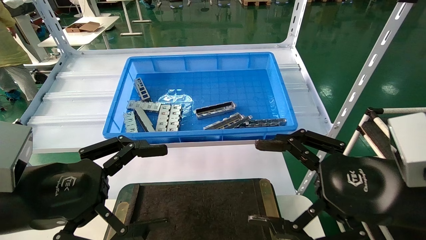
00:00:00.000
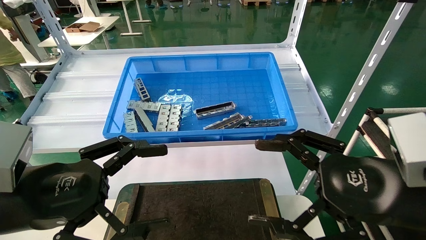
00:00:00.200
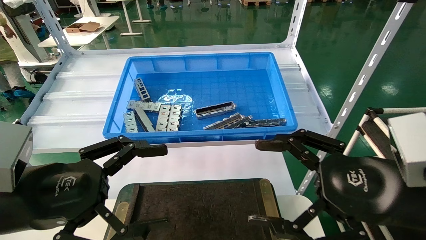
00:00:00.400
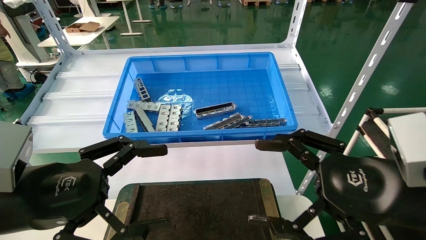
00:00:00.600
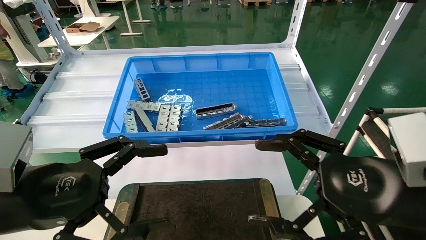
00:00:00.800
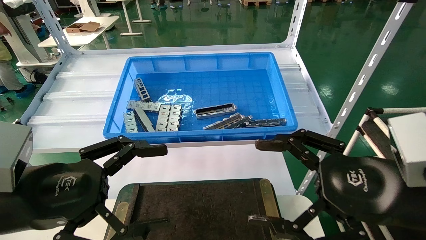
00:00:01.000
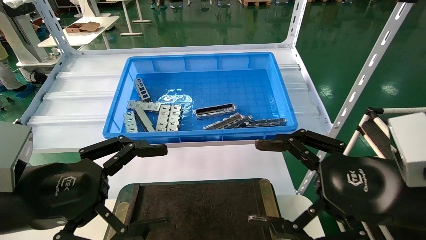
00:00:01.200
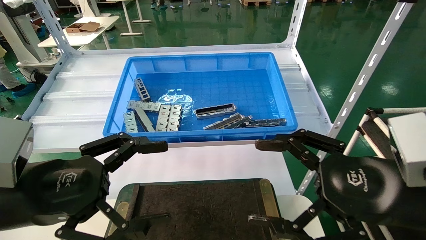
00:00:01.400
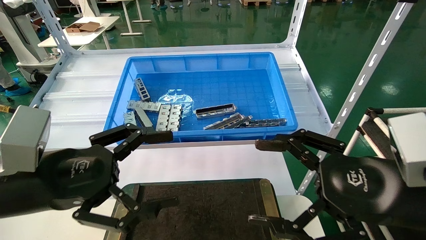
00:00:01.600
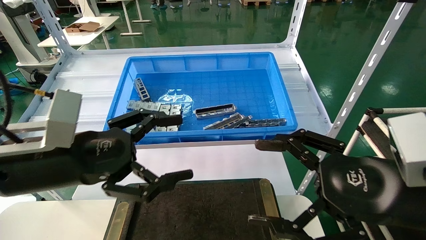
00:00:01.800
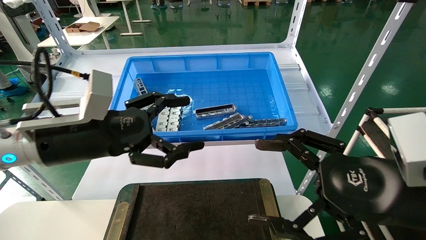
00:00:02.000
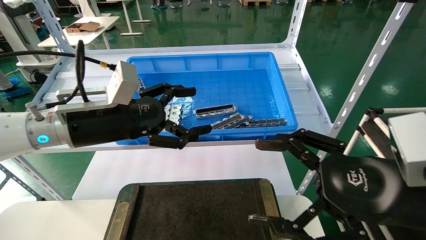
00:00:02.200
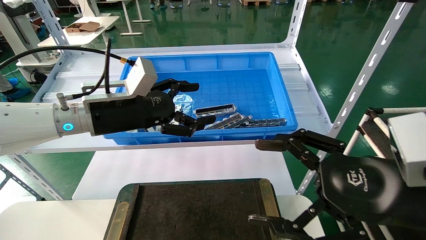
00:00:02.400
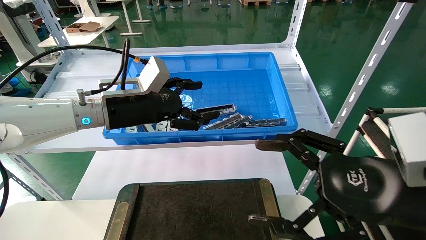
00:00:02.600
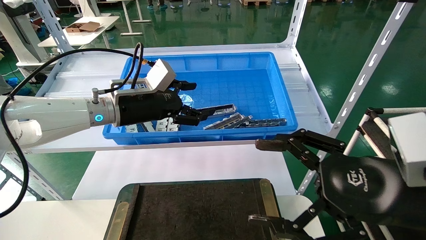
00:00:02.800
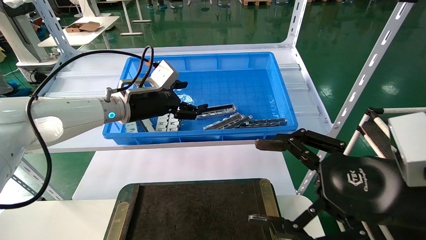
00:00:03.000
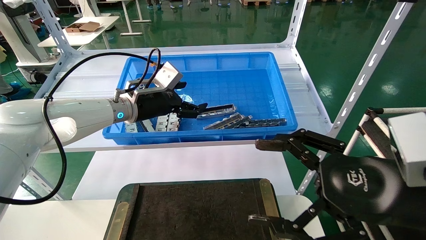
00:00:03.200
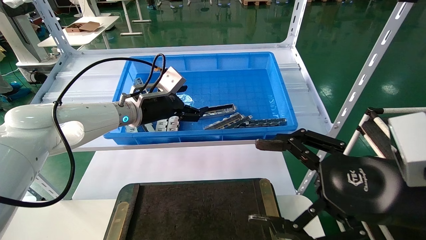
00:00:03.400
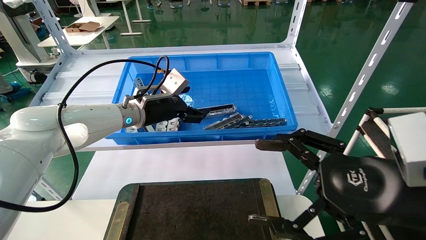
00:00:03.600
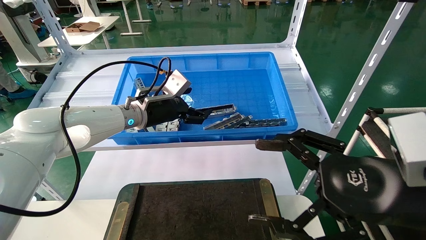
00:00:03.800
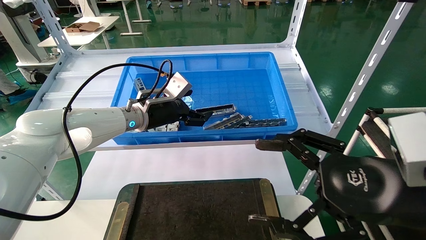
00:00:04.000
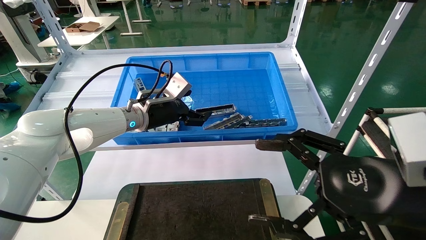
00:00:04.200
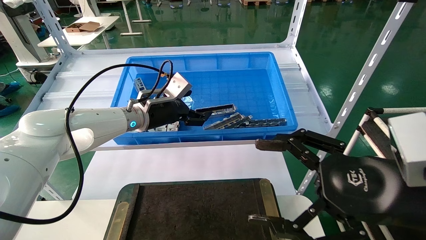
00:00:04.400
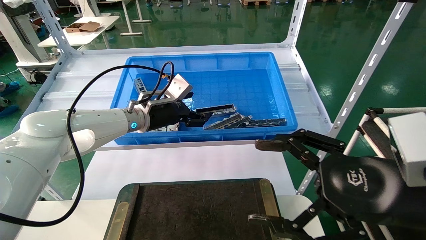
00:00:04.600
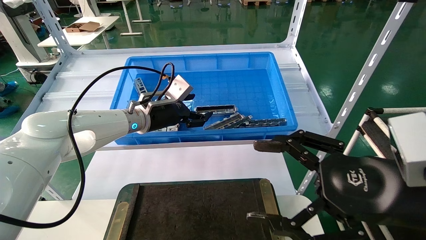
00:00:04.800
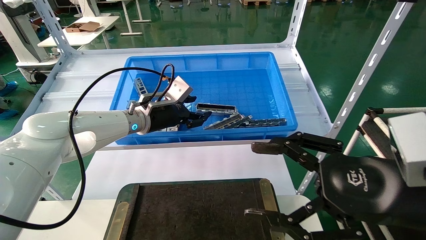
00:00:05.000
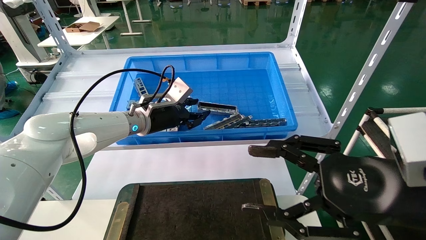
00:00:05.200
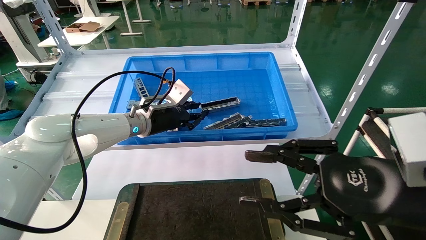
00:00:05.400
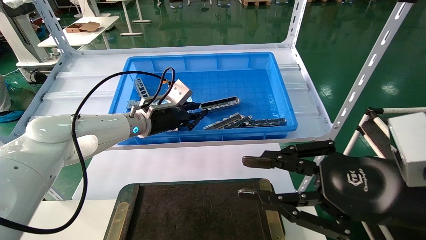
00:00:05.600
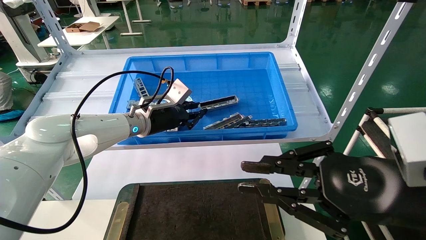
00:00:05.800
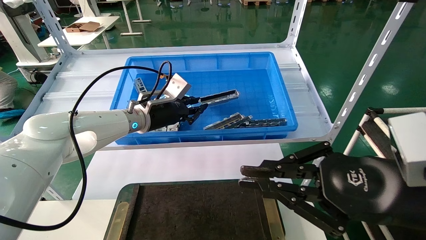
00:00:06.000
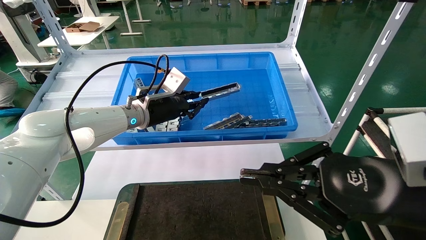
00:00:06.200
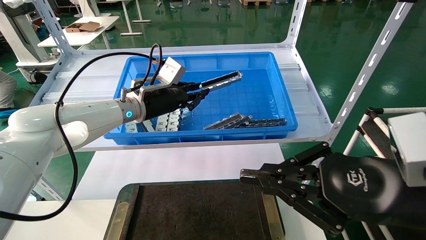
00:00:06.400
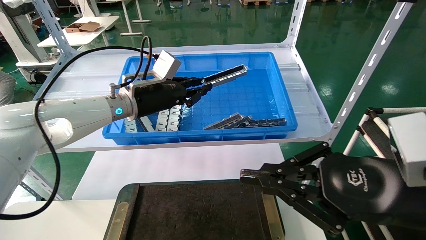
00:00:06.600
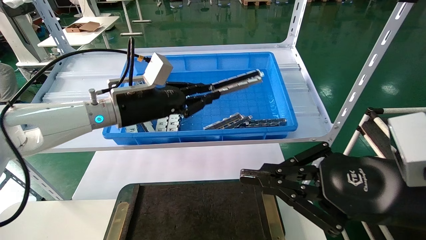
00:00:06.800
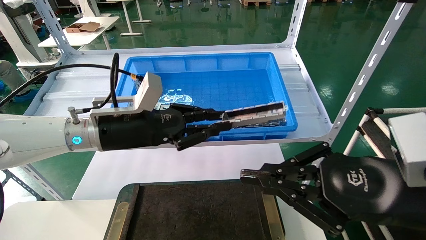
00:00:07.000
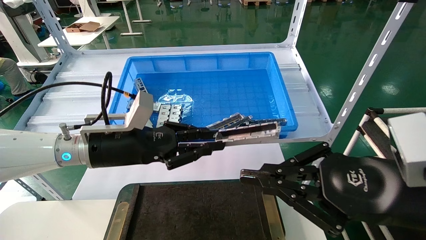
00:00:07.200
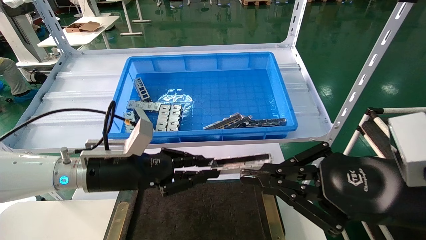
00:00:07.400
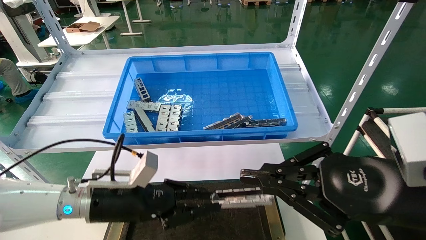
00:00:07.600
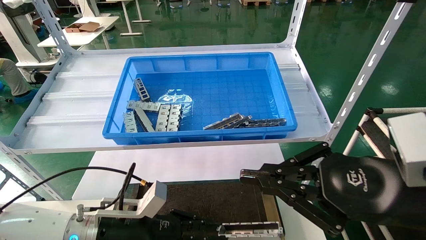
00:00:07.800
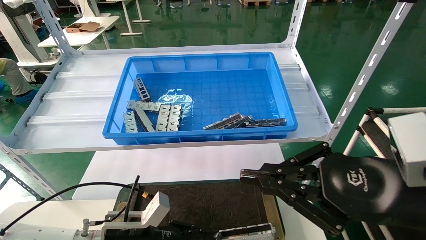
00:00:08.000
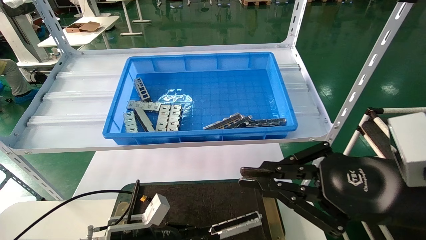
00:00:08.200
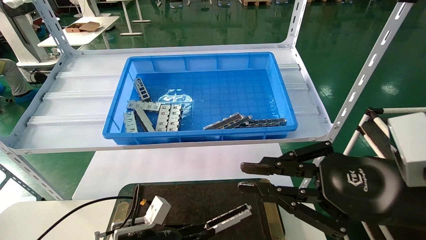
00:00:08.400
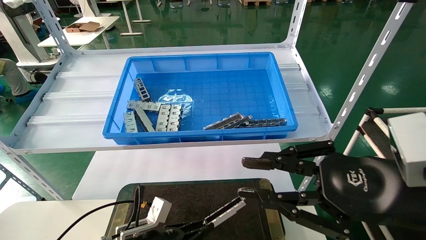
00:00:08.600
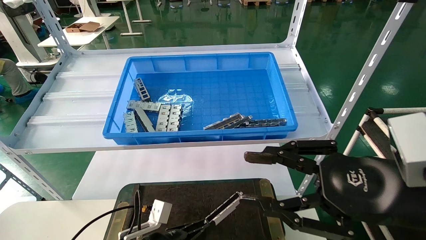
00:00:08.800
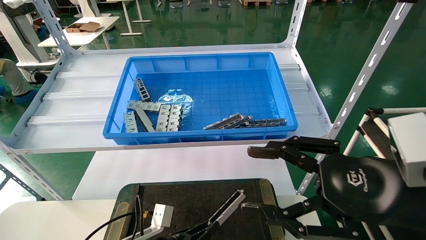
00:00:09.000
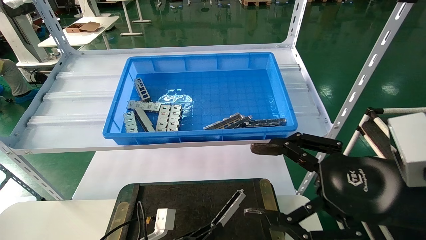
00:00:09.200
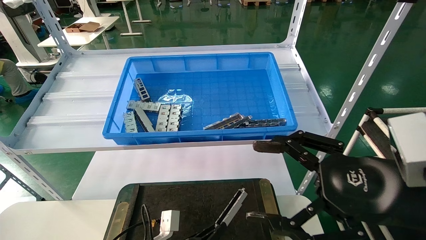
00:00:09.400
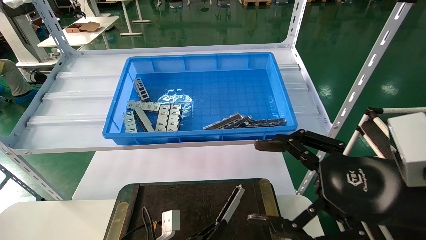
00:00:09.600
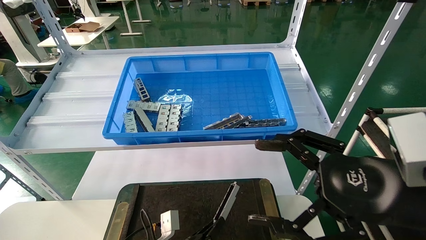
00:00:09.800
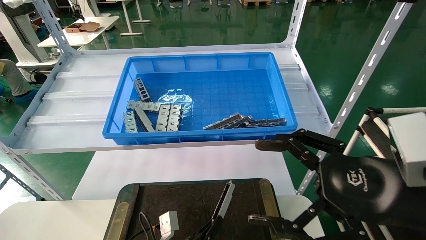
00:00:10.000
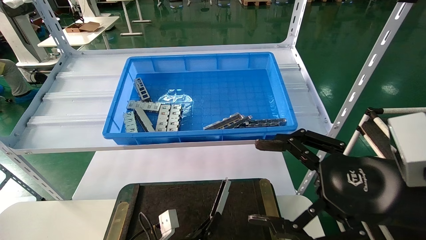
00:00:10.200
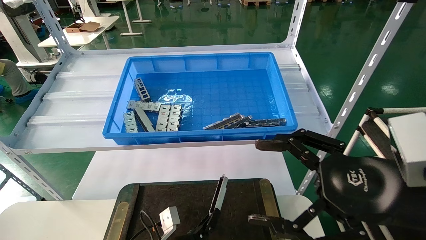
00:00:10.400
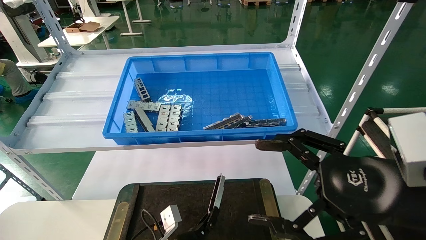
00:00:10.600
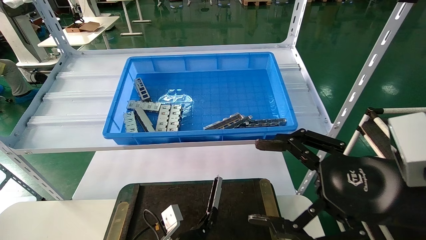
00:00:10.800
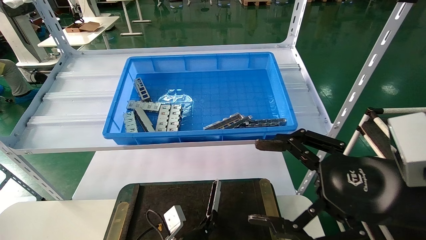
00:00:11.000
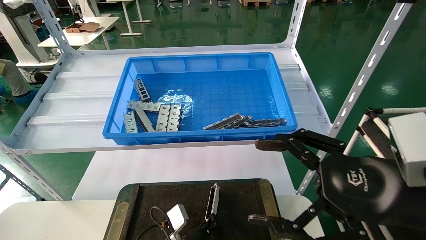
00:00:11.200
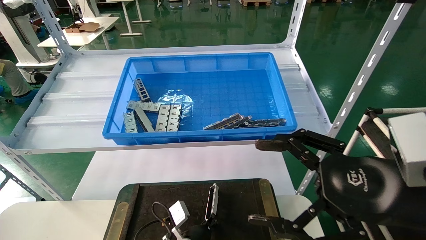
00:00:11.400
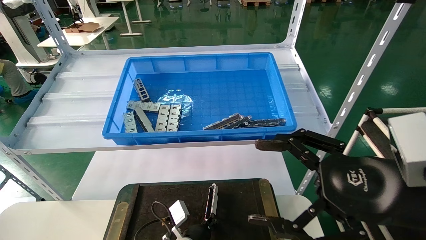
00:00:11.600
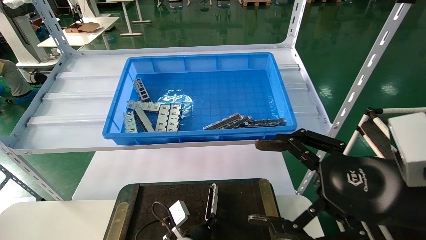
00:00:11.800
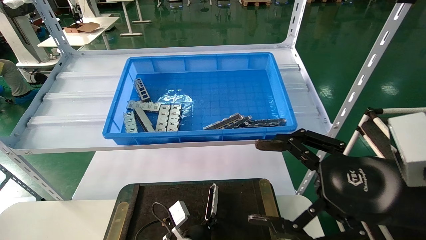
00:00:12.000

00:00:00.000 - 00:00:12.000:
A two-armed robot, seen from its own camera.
Task of the whole recording: Grasp the part with one hand and place it on the black container.
Step, 00:00:01.600 - 00:00:05.400: Pick up the front USB bracket from the feeding area.
00:00:00.000 - 00:00:01.600: The grippers move only a little.
00:00:01.600 - 00:00:03.000: The left gripper moves forward, approximately 25 cm.
00:00:03.000 - 00:00:04.400: The grippers make only small movements.
00:00:04.400 - 00:00:06.000: The left gripper closes its fingers. The right gripper closes.
00:00:06.000 - 00:00:07.600: The left gripper heads backward and downward, covering approximately 20 cm.
00:00:07.600 - 00:00:09.000: The right gripper opens, while the left gripper is displaced downward by roughly 15 cm.
00:00:09.000 - 00:00:10.400: The left gripper travels to the right by roughly 5 cm. Meanwhile the right gripper opens its fingers.
00:00:10.400 - 00:00:12.000: The left gripper moves some 5 cm.

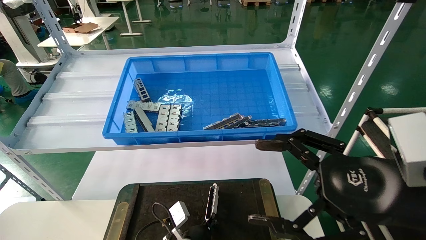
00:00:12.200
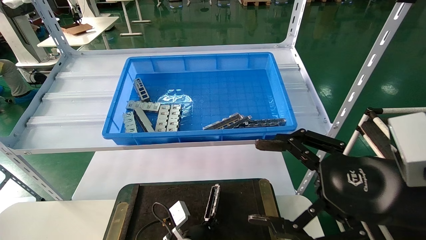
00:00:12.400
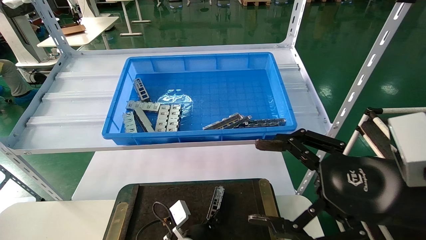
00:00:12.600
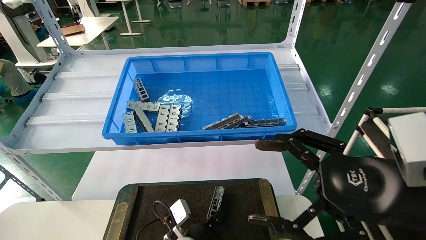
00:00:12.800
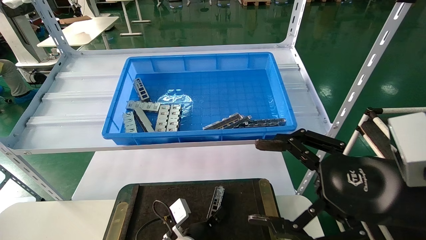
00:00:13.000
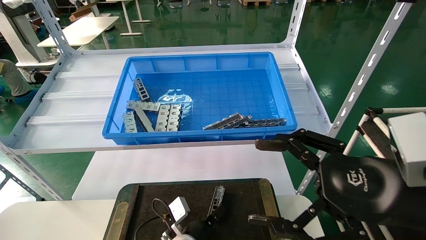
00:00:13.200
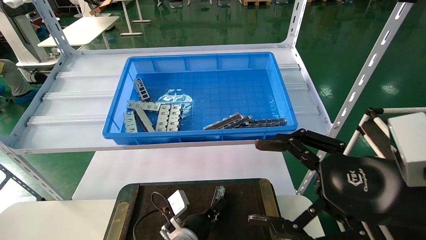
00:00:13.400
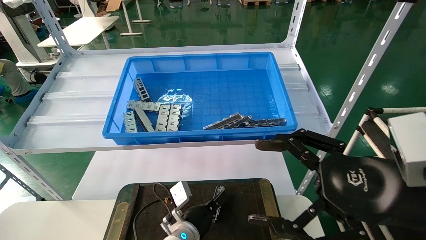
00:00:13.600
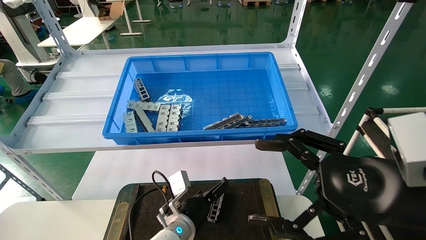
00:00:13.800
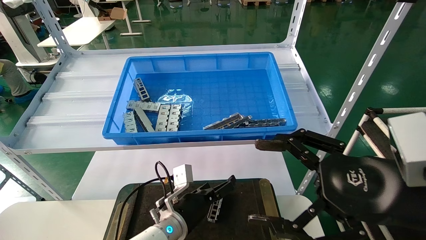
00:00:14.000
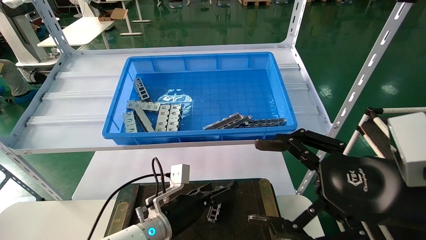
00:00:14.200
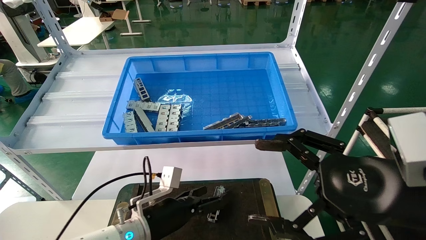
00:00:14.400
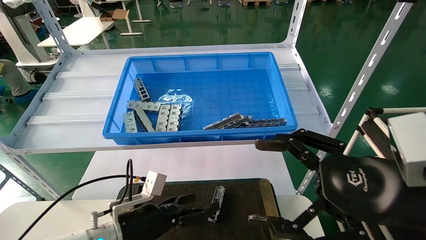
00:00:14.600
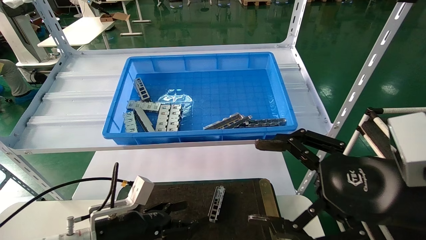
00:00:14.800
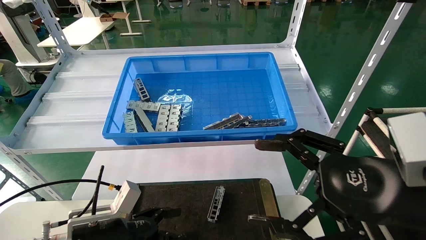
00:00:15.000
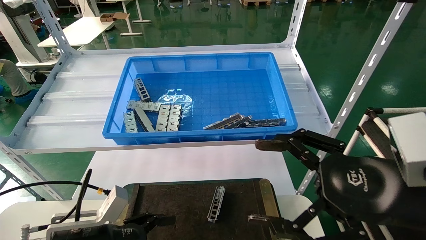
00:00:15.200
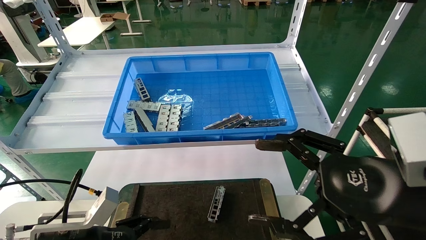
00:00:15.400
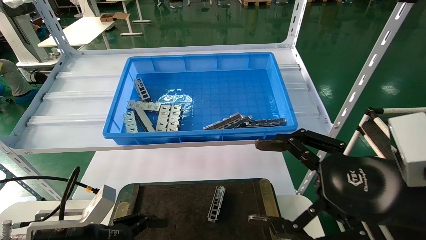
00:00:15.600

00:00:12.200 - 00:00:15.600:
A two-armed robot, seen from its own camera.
Task of the whole recording: Grasp the part with one hand and place it on the black container.
00:00:12.200 - 00:00:13.800: The left gripper goes about 5 cm upward, and opens.
00:00:13.800 - 00:00:15.600: The left gripper heads to the left and backward, covering approximately 25 cm.
